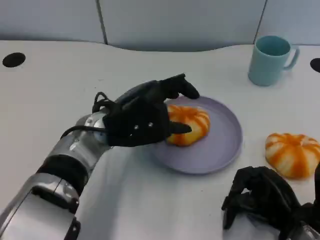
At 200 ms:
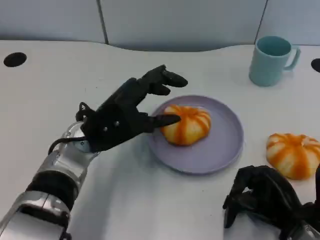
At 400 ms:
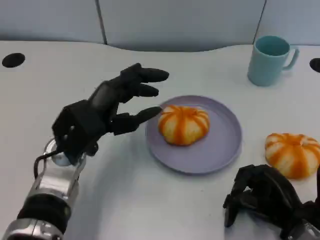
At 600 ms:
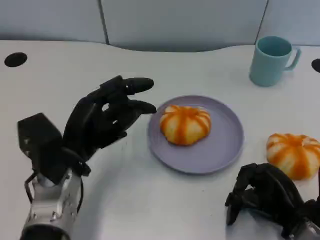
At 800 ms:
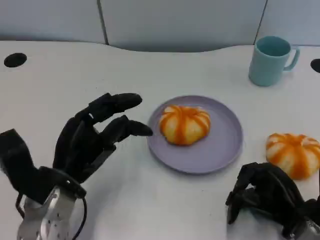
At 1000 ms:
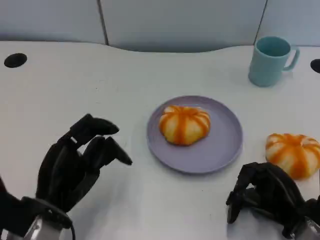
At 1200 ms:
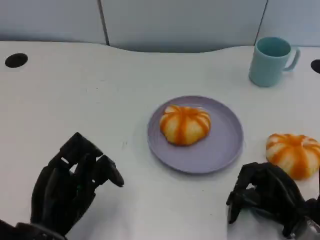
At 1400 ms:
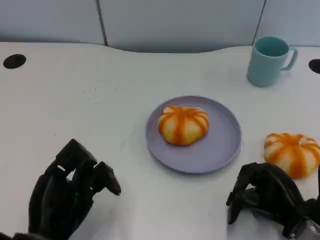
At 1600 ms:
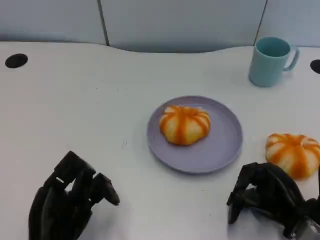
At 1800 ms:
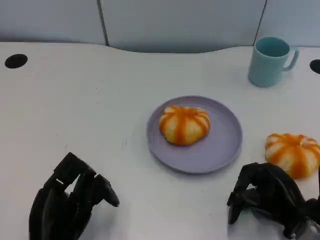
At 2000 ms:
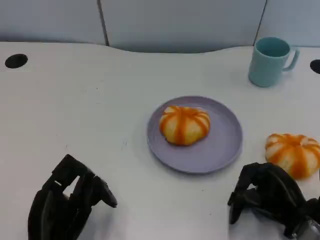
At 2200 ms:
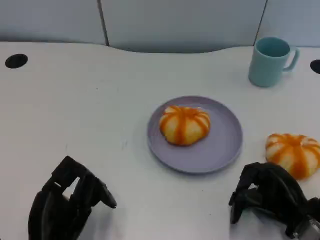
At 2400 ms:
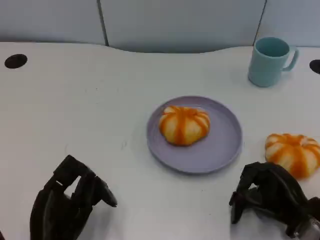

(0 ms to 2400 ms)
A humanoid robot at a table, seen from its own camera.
Task of the whole recording: Grasp the bread from the table and place it into the plate.
0 ms - 1200 ms: The left hand goes some 20 cm backward, to the left and downward.
1200 ms - 2400 ms: There are only small adjustments of the hands.

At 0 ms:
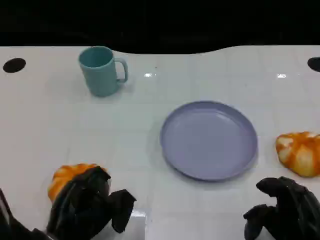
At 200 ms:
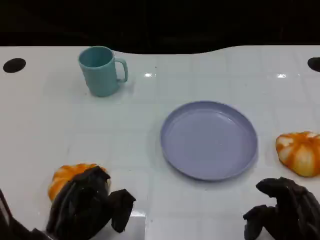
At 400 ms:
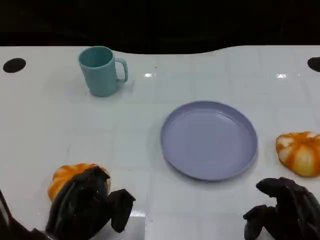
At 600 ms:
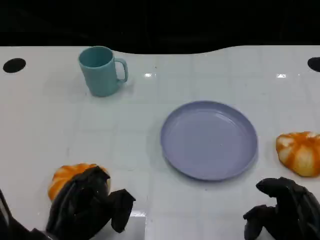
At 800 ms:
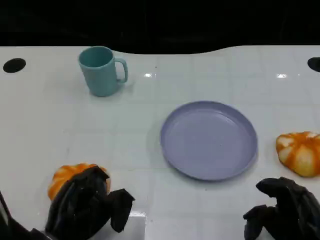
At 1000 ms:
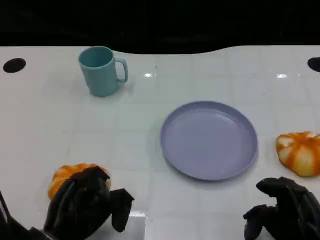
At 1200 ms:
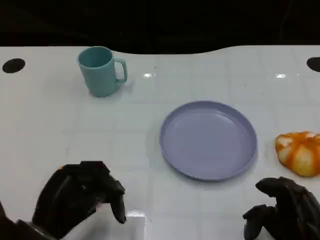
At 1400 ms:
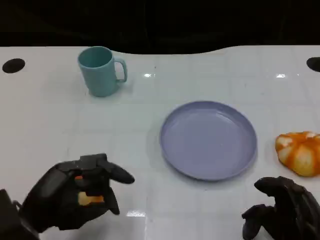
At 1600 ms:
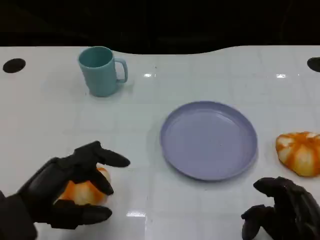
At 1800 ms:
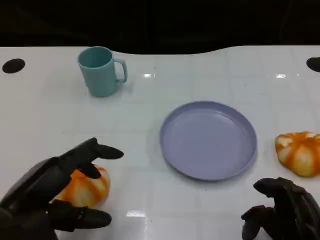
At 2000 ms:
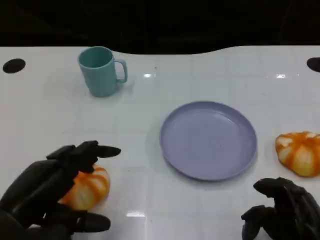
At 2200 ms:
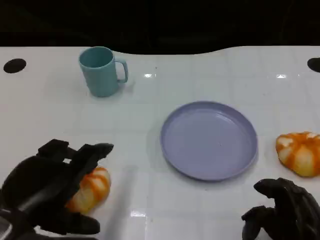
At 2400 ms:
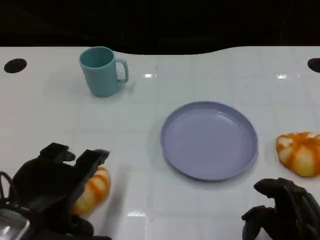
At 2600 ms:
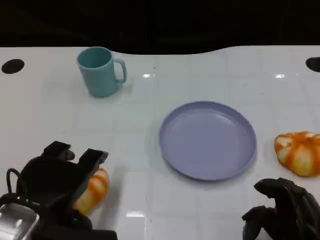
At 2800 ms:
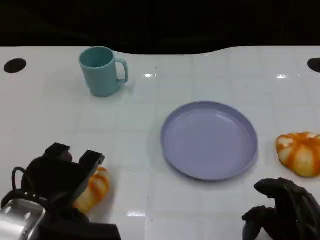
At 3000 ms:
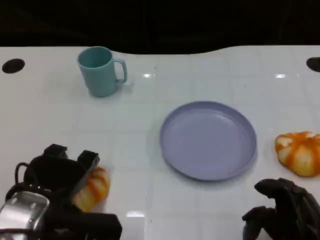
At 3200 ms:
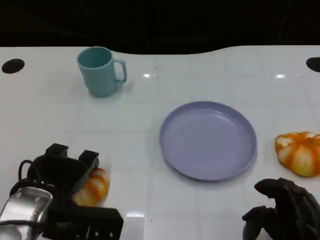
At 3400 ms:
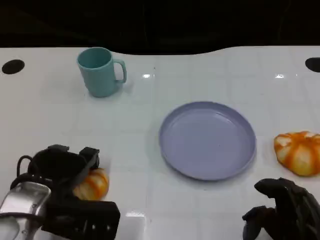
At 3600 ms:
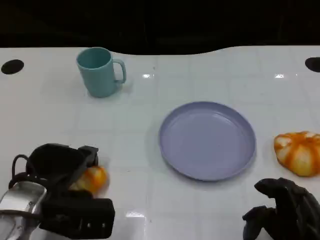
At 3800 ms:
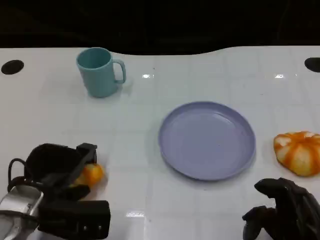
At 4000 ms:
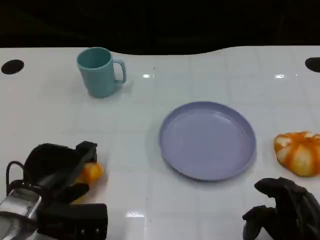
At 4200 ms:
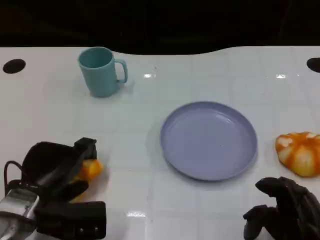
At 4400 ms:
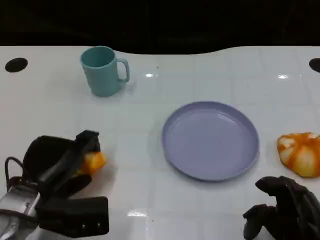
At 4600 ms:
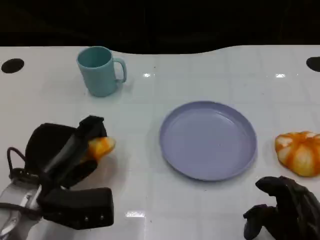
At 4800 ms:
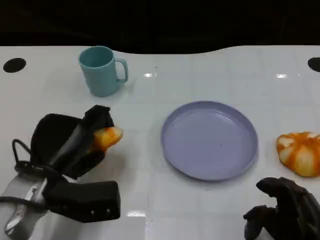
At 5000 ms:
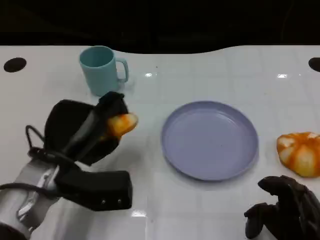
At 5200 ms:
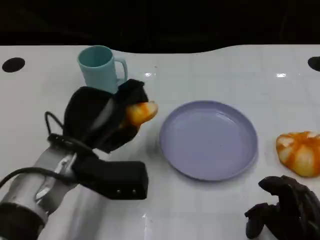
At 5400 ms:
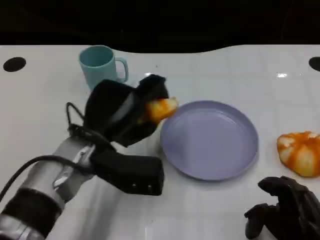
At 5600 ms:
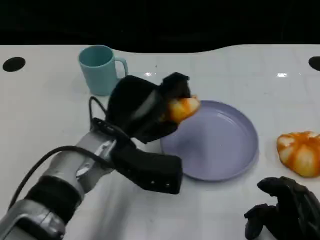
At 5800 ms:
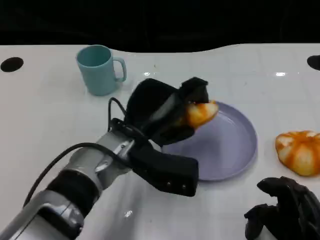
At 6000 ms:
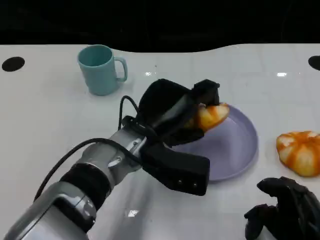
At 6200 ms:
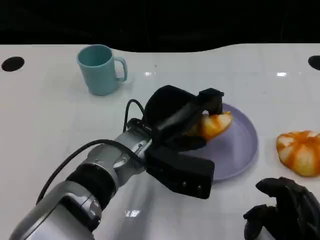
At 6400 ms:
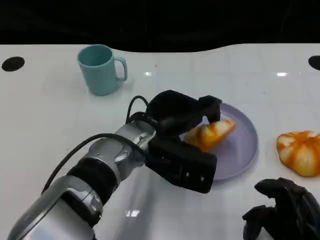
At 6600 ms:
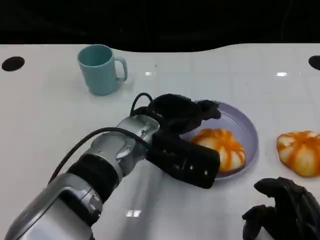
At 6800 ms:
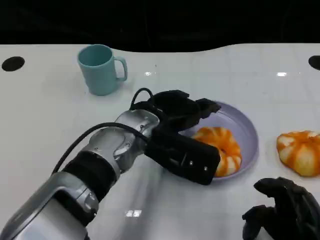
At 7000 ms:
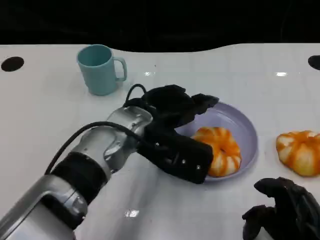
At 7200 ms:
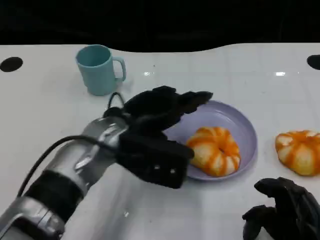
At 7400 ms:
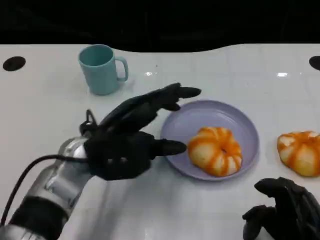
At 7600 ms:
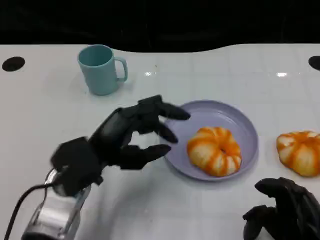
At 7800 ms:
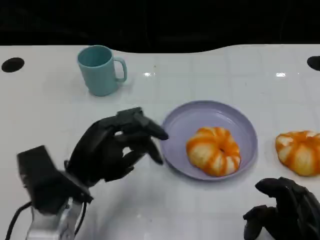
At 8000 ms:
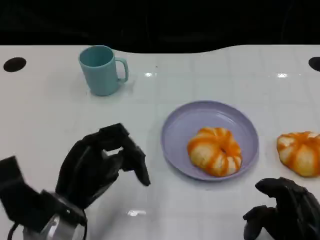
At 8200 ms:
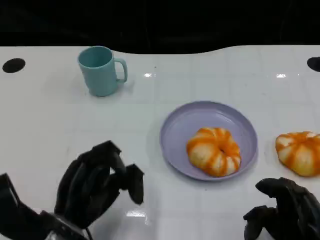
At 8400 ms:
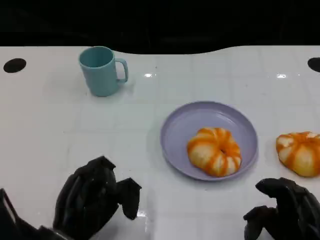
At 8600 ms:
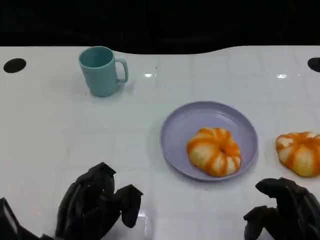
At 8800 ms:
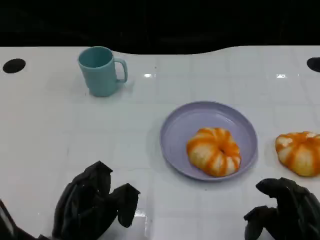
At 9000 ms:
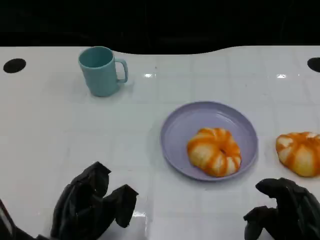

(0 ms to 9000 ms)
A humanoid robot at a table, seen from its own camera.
Task of the whole recording: Grasp the bread from the table and place it into the plate.
0 ms - 1600 ms: The left hand shifts roughly 5 cm upward.
1600 ms - 3000 ms: The left hand ends up roughly 5 cm from where it was.
4400 ms - 6000 ms: The left hand is displaced to the right by approximately 15 cm.
6000 ms - 7600 ms: The left hand shifts roughly 10 cm to the left.
7600 ms - 9000 ms: The left hand is displaced backward and downward by roughly 10 cm.

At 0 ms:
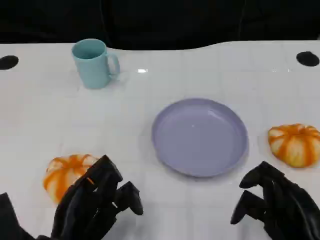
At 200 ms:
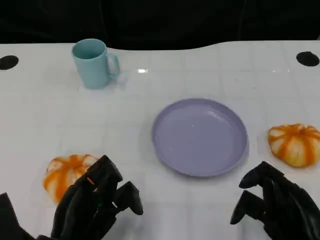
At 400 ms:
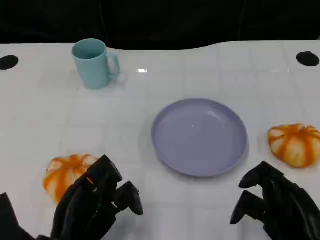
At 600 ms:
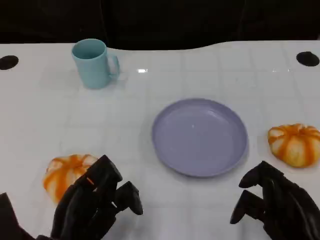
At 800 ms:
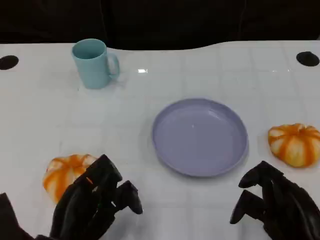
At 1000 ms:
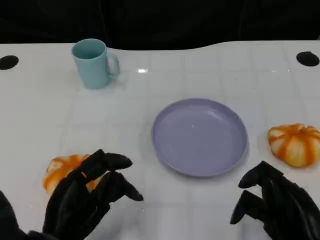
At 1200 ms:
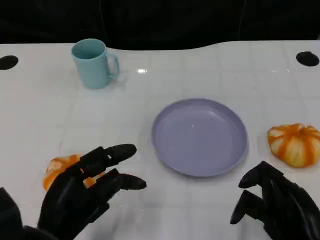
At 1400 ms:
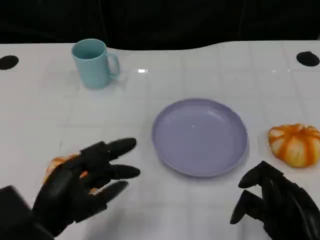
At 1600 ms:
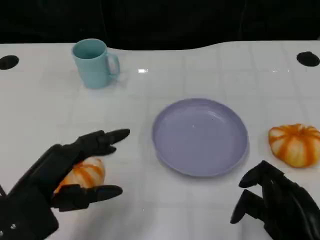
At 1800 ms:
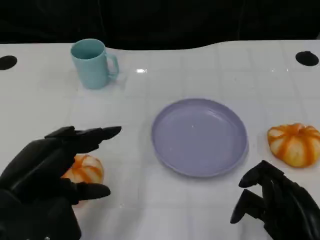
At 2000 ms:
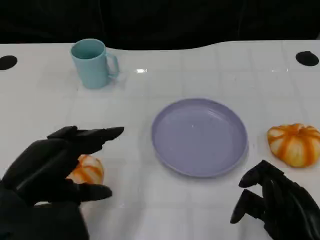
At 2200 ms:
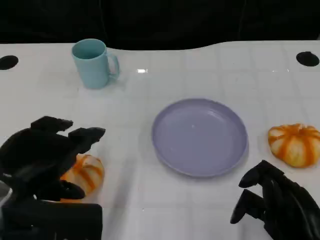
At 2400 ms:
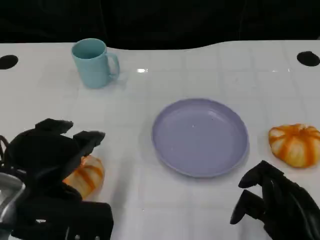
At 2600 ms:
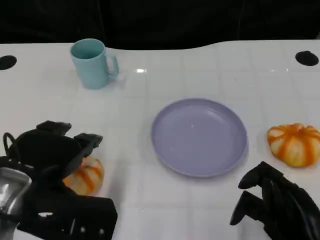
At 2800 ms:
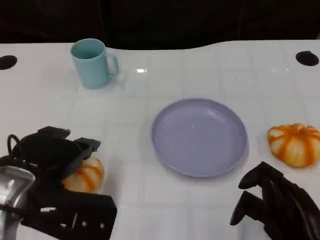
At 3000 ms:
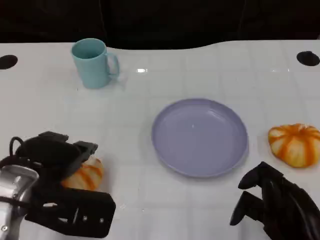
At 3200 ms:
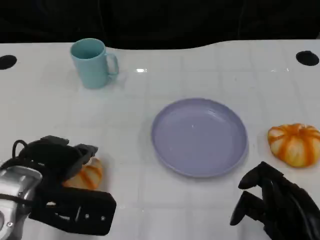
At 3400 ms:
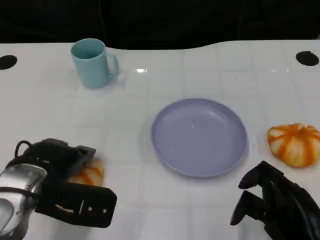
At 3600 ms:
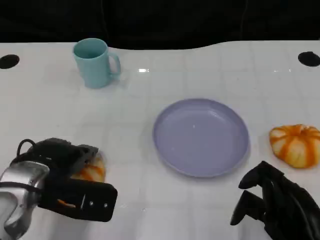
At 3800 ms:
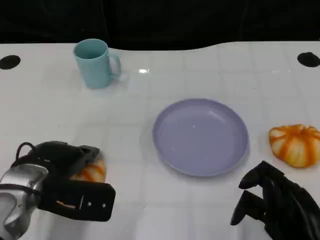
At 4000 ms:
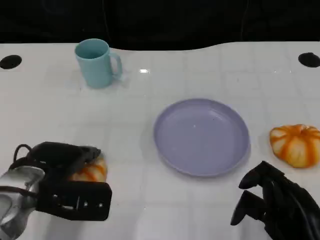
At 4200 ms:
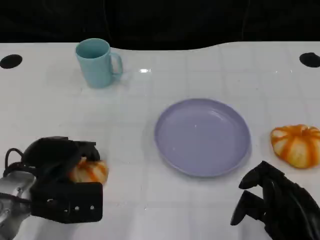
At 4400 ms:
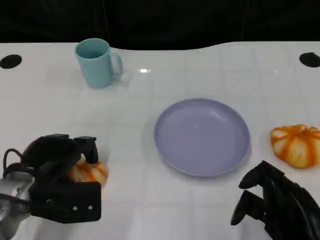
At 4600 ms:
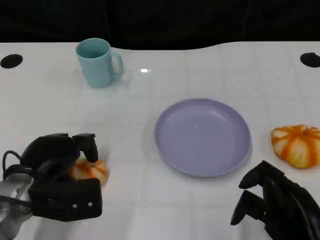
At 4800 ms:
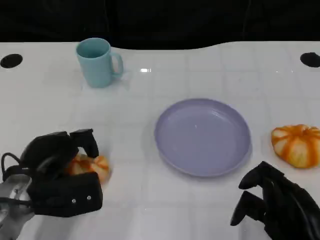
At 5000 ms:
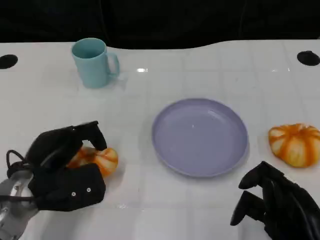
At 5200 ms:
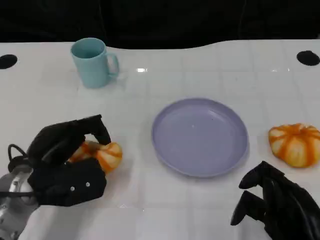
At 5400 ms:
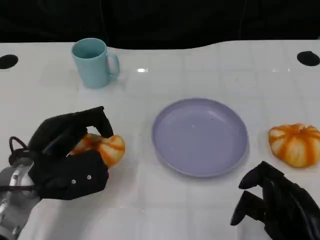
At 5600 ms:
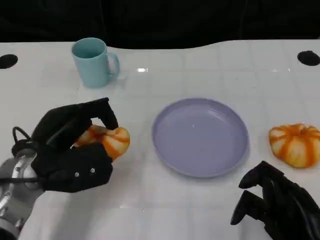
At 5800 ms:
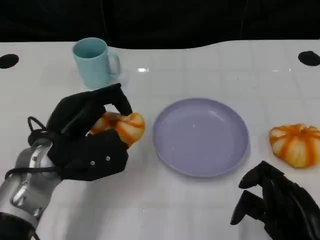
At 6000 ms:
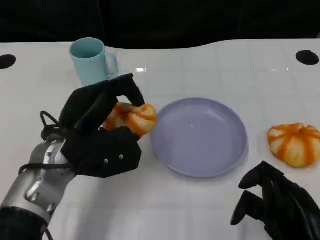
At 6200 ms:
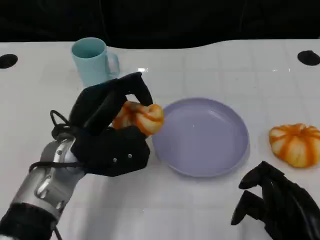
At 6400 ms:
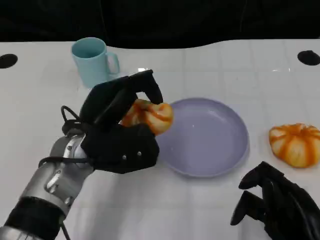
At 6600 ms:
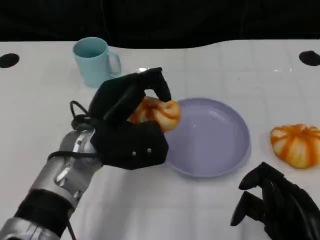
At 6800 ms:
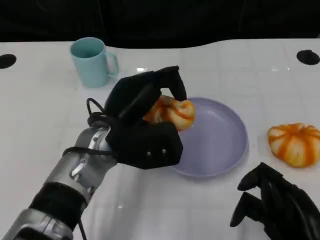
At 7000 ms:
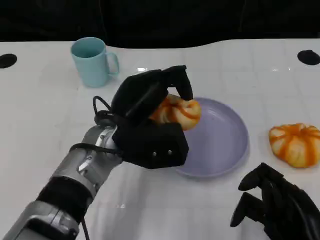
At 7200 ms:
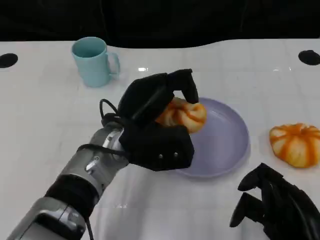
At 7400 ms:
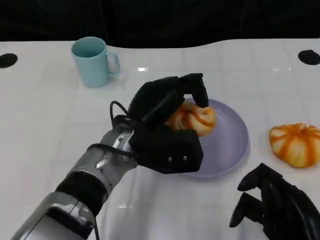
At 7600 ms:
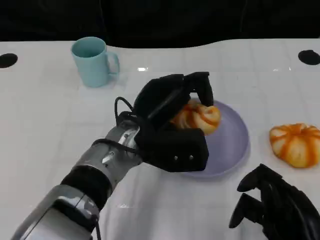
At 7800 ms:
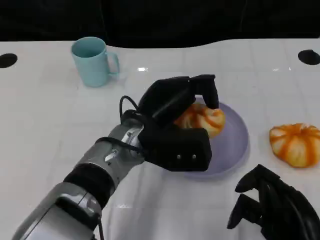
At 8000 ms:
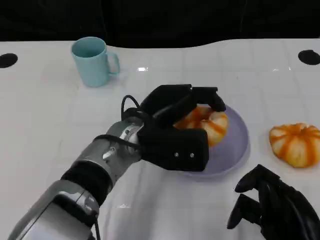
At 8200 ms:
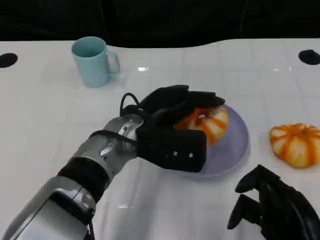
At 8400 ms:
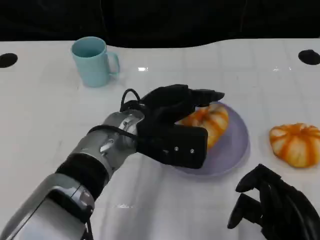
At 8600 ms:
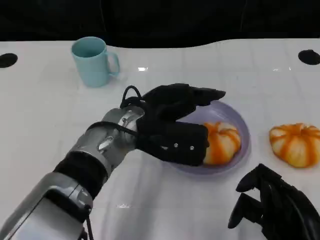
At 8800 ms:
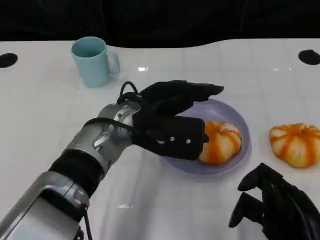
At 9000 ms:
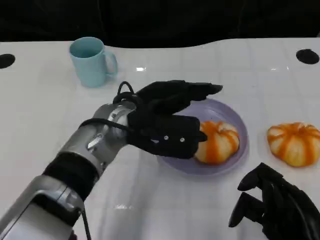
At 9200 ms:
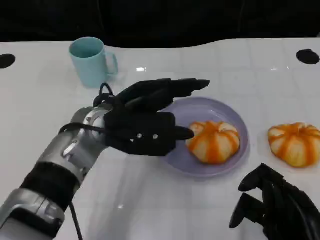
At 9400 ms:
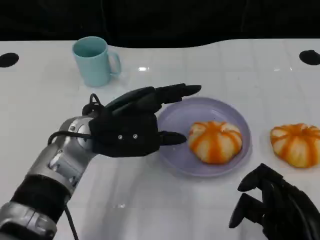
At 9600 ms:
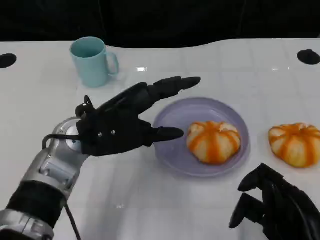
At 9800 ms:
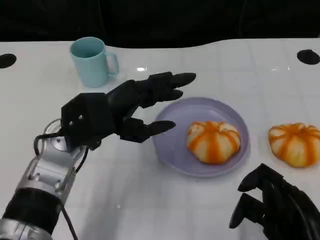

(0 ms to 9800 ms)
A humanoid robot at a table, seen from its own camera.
Task of the whole recording: Grasp the bread from the table and place it into the plate.
0 ms - 1400 ms: The left hand changes place by some 5 cm.
1400 ms - 2800 ms: The left hand is displaced upward by some 5 cm.
2800 ms - 4200 ms: The left hand is displaced downward by approximately 10 cm.
4200 ms - 5600 ms: The left hand ends up about 5 cm from where it was.
5600 ms - 7000 ms: The left hand shifts roughly 10 cm to the right.
8400 ms - 9800 ms: The left hand shifts approximately 10 cm to the left.

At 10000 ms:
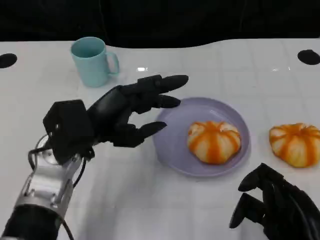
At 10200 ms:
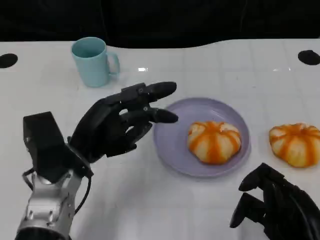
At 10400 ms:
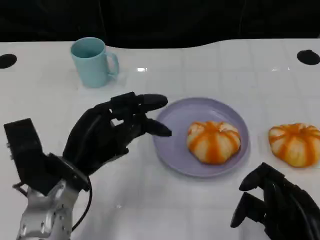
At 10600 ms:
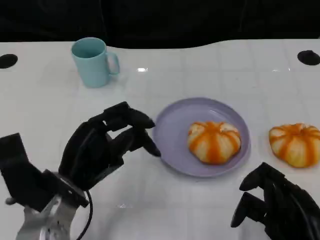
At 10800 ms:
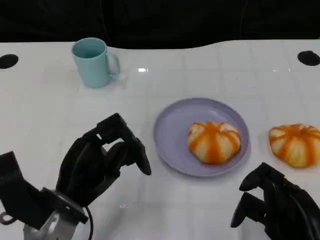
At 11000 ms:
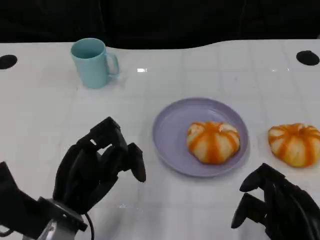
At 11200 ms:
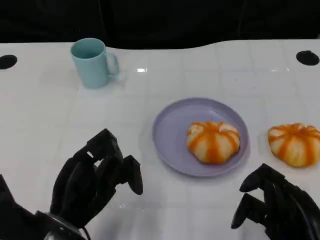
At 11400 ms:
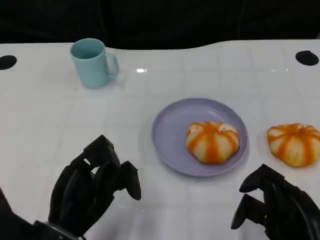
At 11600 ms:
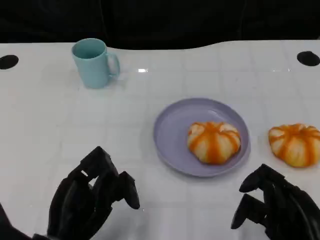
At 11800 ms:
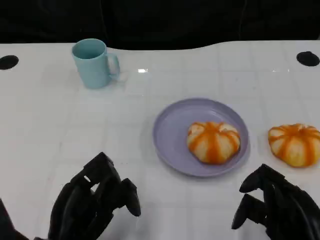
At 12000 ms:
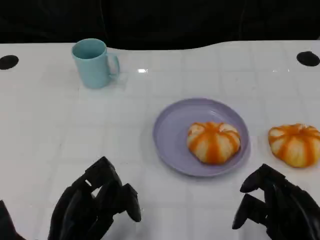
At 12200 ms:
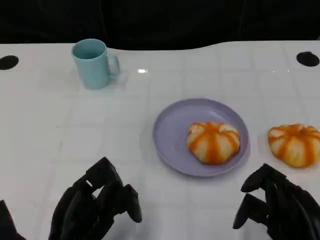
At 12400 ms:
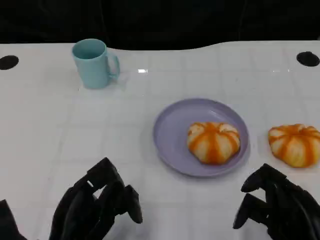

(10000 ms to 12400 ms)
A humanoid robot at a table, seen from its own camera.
Task of the whole recording: Grasp the bread from the table and place it into the plate.
10000 ms - 11200 ms: The left hand goes roughly 10 cm backward and downward.
11200 ms - 12400 ms: The hands stay close to where they were, moving slightly.
